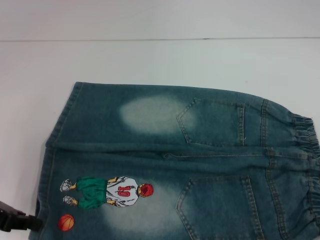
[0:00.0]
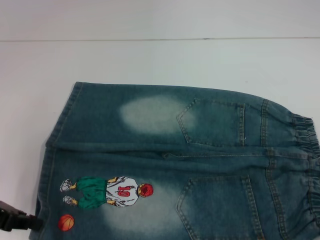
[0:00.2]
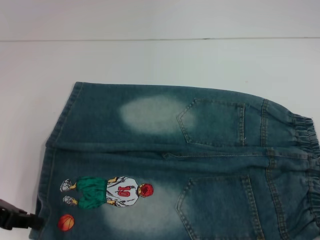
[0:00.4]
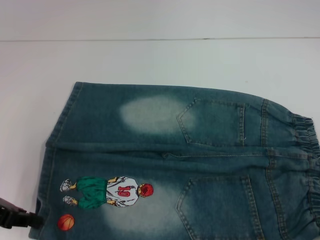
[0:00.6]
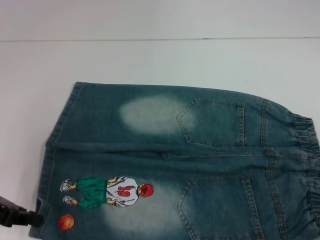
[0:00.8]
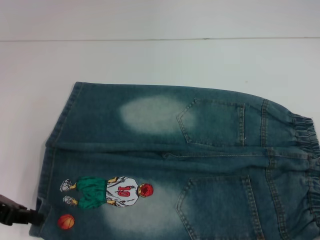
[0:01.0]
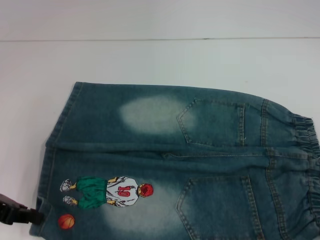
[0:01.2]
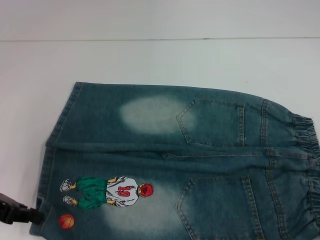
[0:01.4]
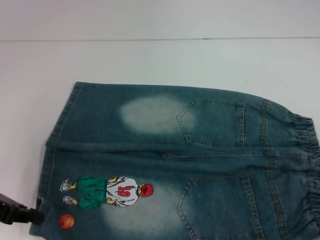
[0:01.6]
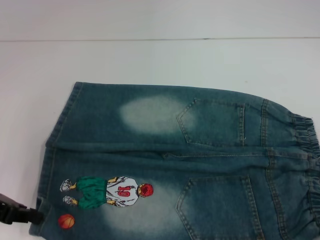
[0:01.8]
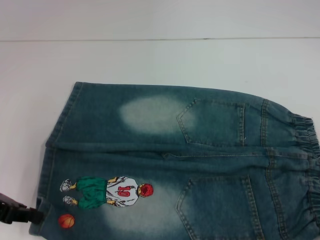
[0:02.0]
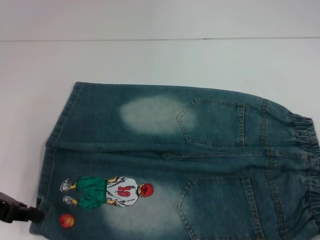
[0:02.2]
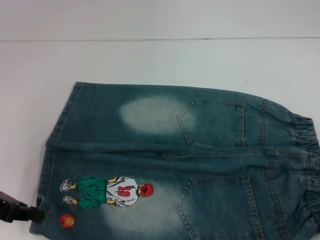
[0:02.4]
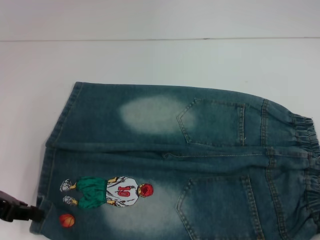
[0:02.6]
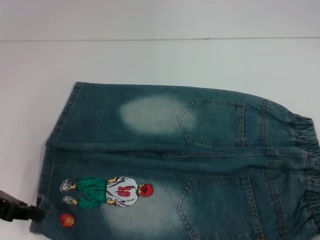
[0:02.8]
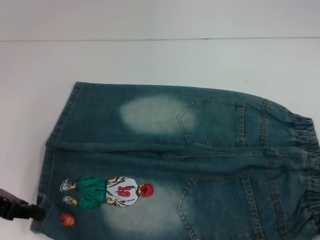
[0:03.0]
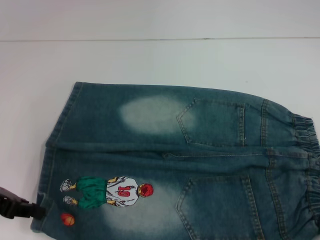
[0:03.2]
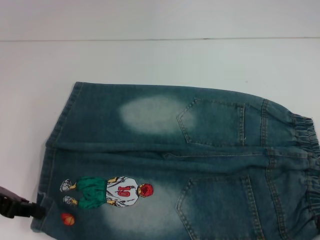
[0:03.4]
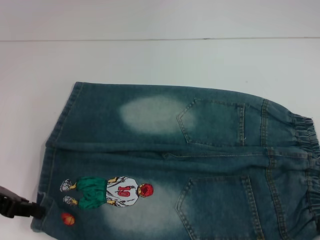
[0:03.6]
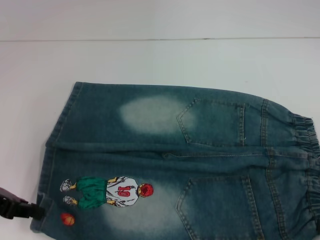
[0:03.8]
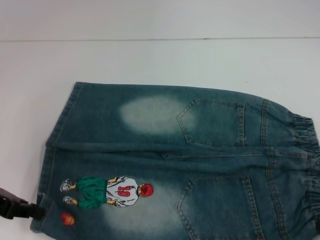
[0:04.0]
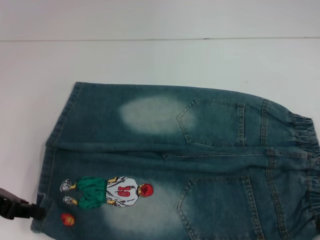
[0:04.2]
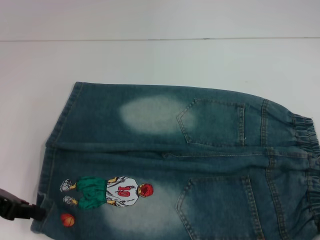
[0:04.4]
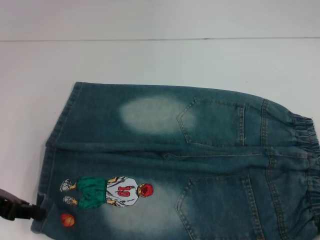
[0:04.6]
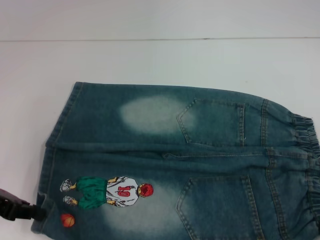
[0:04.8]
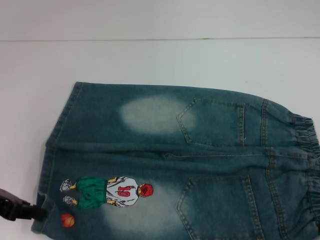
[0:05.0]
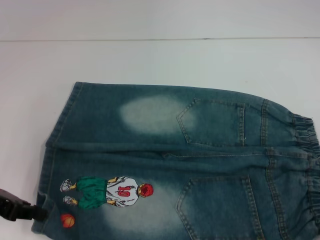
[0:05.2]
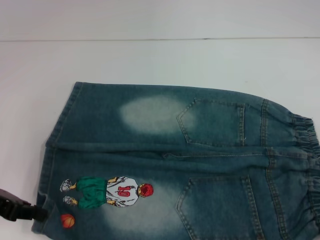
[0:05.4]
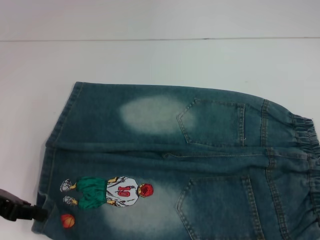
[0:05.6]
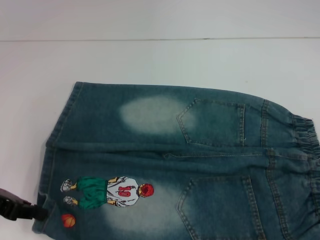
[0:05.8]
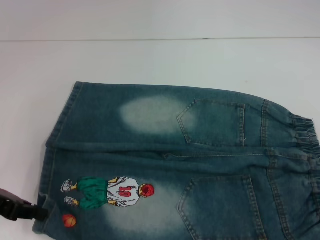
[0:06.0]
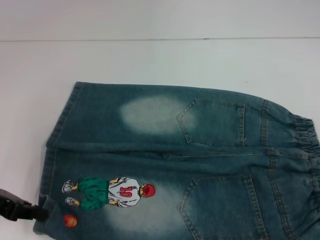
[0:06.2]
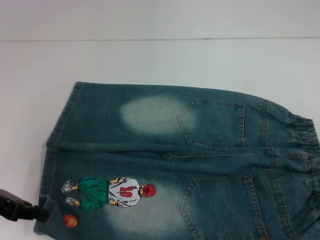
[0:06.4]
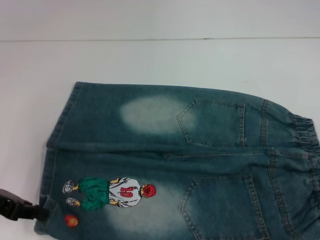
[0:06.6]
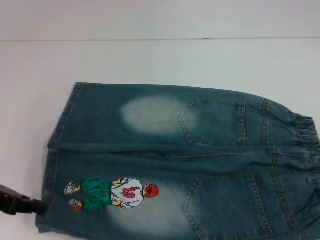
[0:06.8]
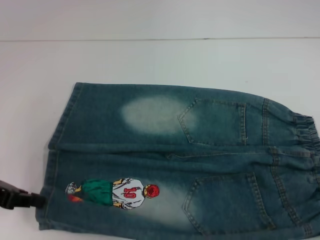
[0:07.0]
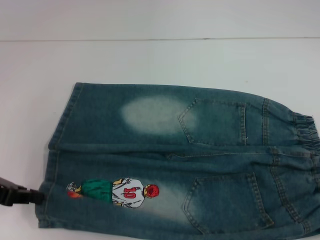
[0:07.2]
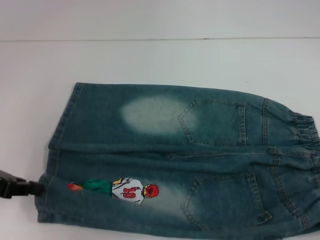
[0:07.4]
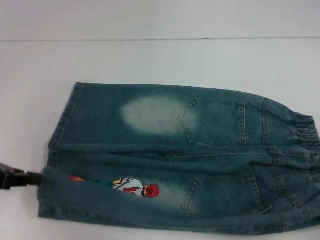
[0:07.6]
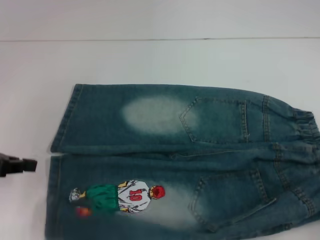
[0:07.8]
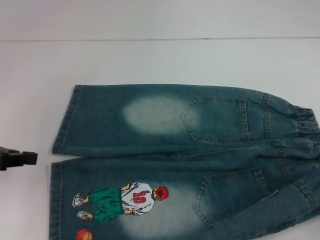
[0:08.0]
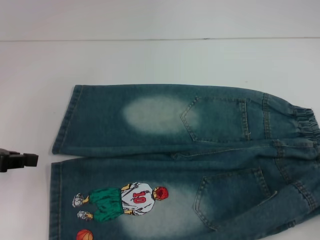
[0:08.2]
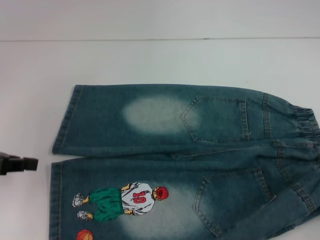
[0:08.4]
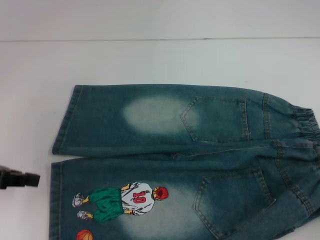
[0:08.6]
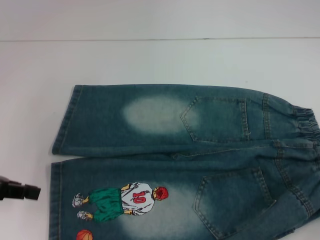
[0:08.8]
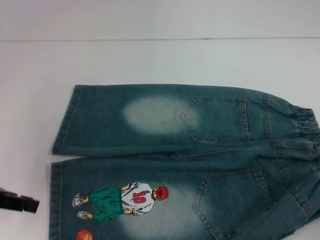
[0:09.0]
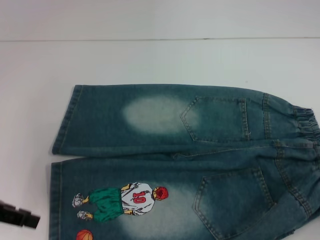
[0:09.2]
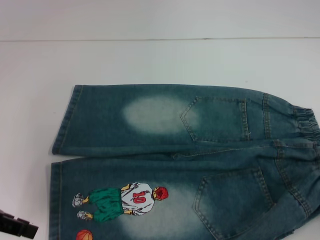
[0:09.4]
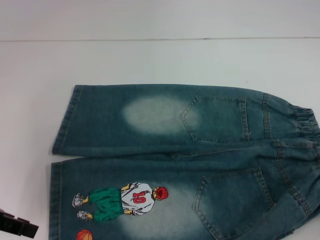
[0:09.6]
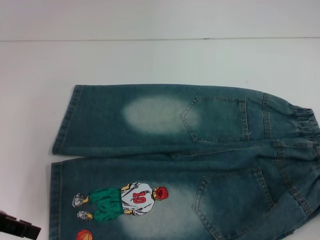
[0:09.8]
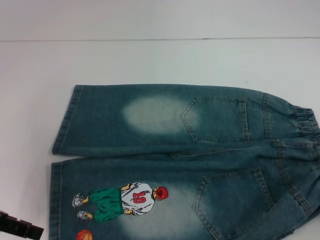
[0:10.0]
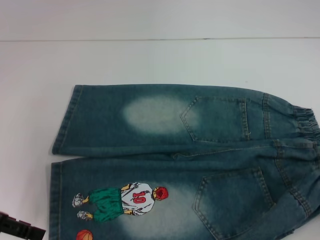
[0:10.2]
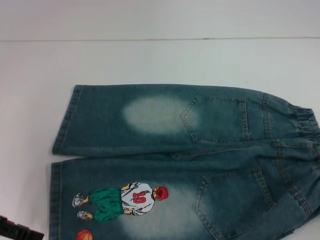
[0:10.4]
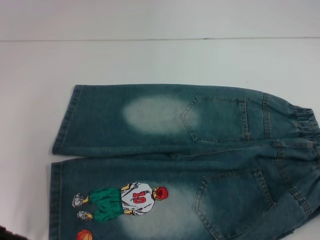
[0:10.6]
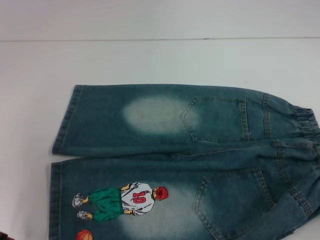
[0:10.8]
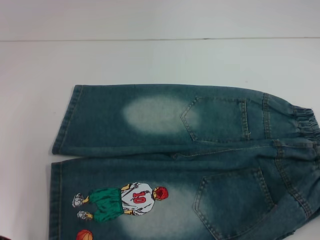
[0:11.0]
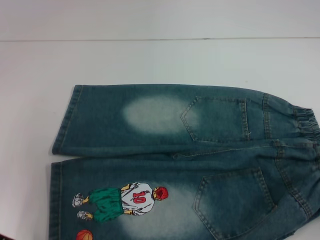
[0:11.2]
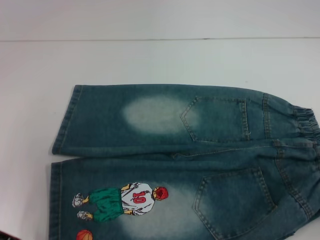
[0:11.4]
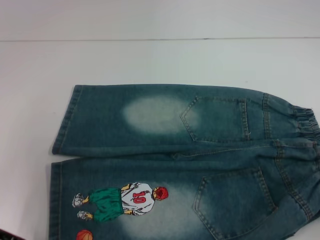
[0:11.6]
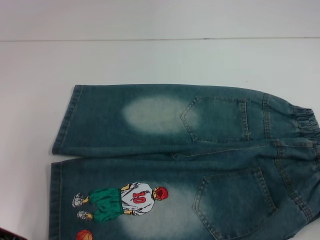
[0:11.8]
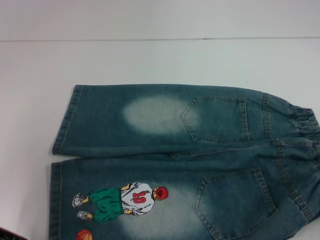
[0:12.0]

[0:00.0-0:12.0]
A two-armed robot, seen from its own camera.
0:00.0 to 0:03.0: The grippers make only small movements.
0:03.0 to 0:04.4: Neither gripper changes place.
0:04.4 to 0:06.0: The right gripper closes up.
0:06.0 to 0:09.0: There are only small adjustments of the grippers.
0:09.0 to 0:10.4: The left gripper opens.
0:10.4 to 0:12.0: The grippers move only a little.

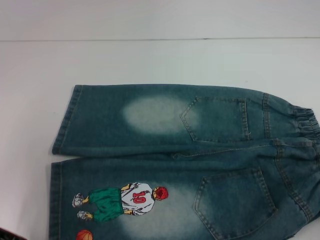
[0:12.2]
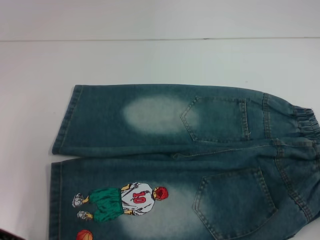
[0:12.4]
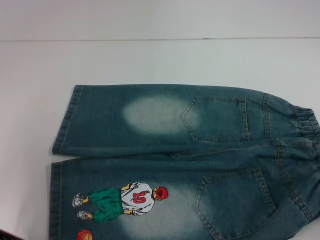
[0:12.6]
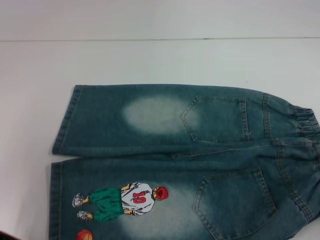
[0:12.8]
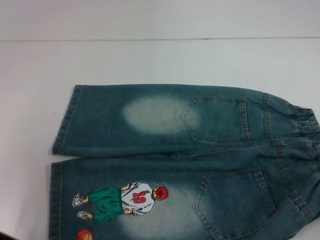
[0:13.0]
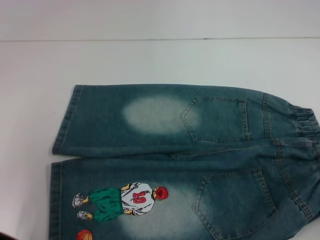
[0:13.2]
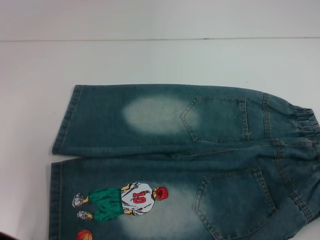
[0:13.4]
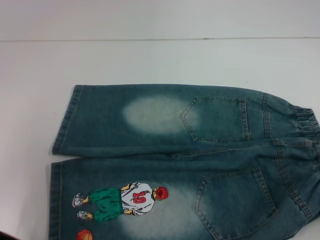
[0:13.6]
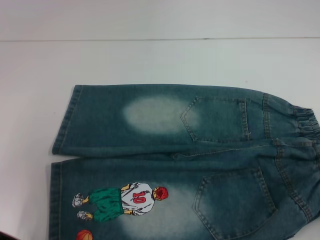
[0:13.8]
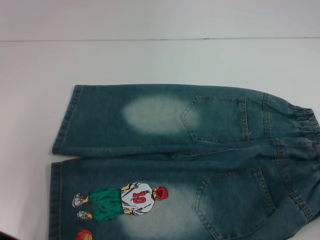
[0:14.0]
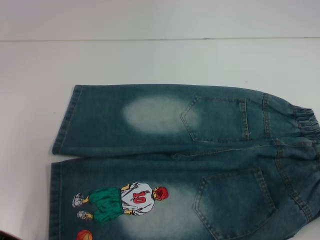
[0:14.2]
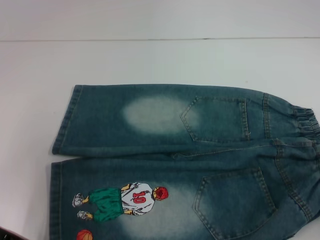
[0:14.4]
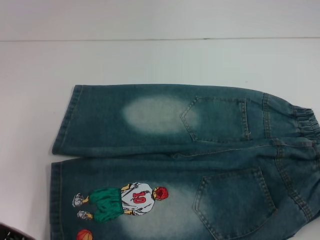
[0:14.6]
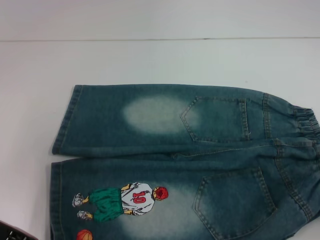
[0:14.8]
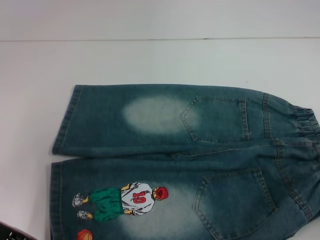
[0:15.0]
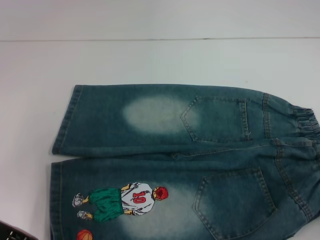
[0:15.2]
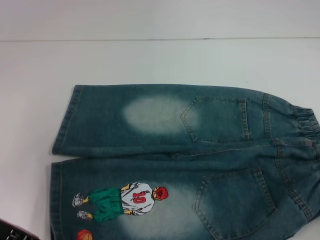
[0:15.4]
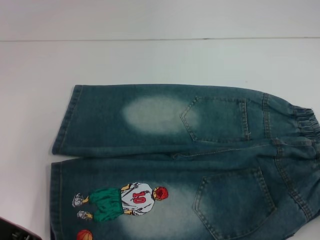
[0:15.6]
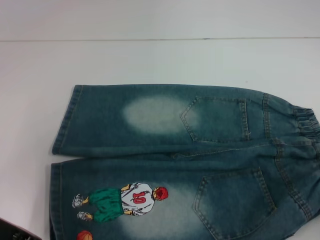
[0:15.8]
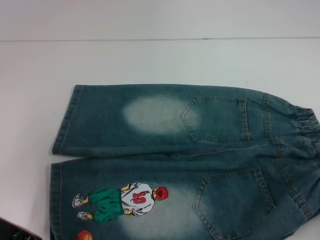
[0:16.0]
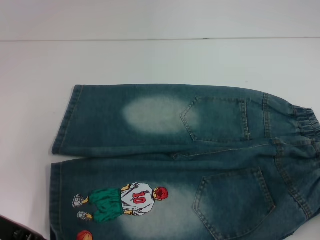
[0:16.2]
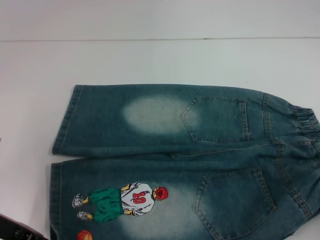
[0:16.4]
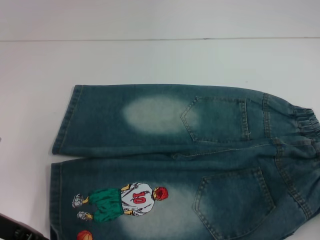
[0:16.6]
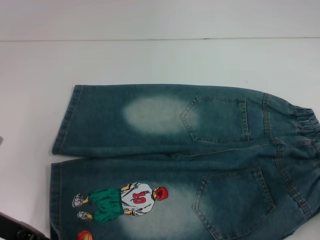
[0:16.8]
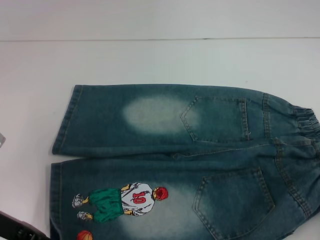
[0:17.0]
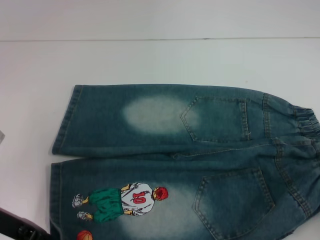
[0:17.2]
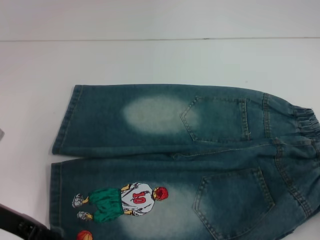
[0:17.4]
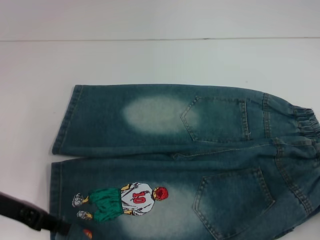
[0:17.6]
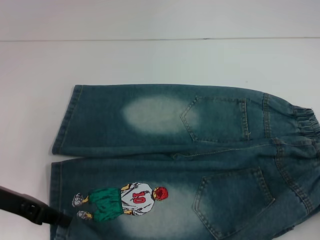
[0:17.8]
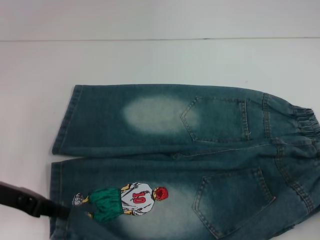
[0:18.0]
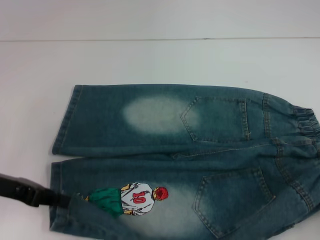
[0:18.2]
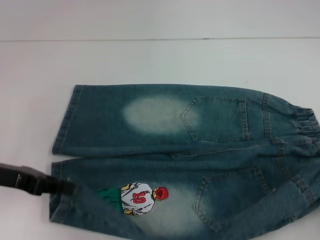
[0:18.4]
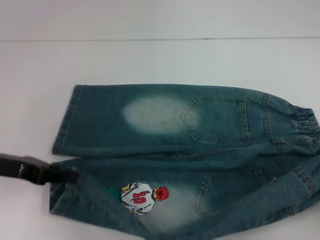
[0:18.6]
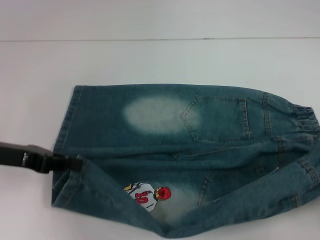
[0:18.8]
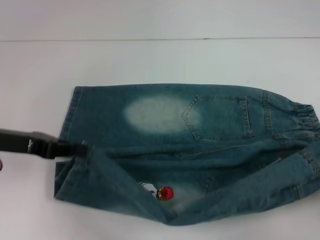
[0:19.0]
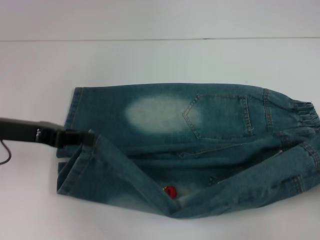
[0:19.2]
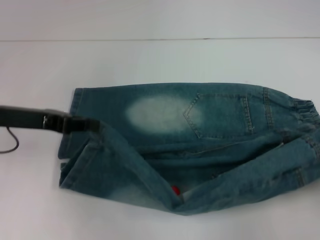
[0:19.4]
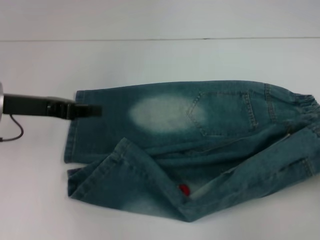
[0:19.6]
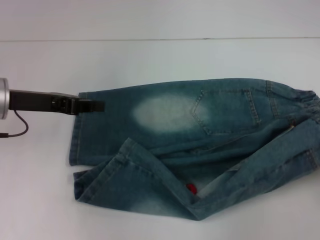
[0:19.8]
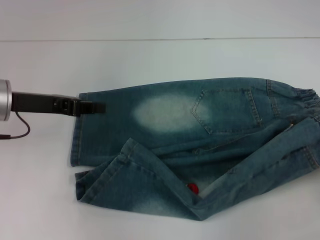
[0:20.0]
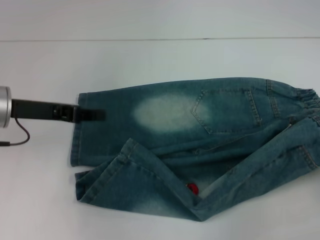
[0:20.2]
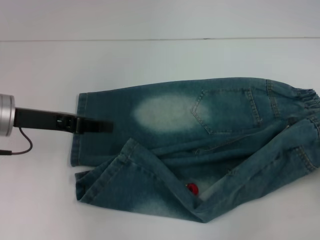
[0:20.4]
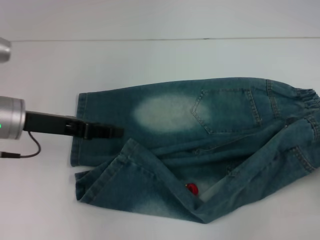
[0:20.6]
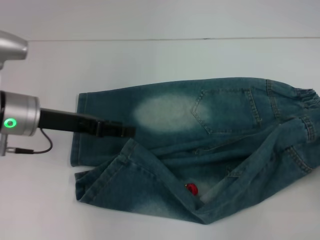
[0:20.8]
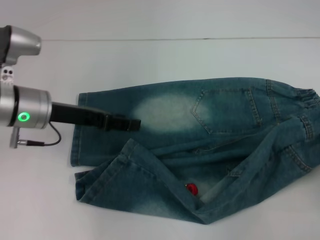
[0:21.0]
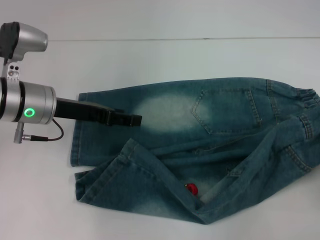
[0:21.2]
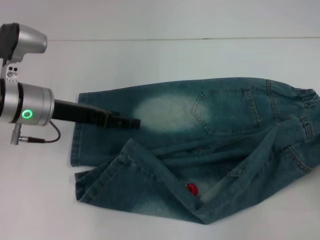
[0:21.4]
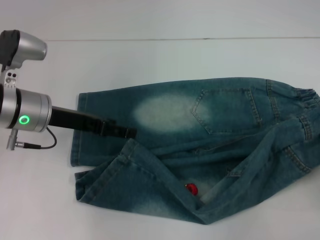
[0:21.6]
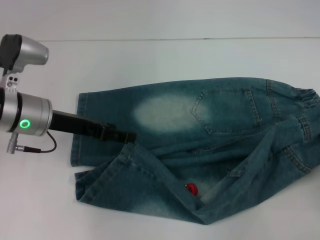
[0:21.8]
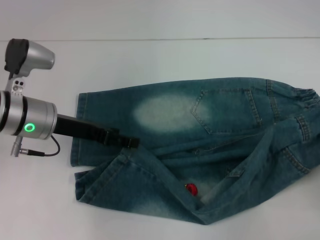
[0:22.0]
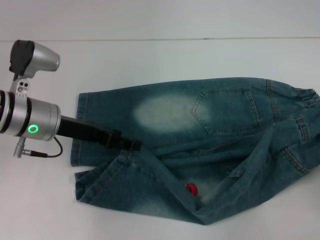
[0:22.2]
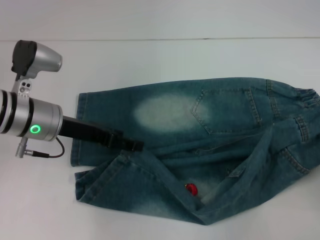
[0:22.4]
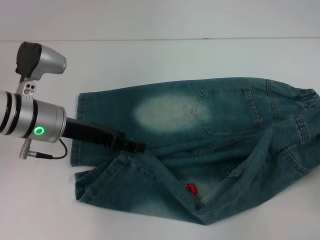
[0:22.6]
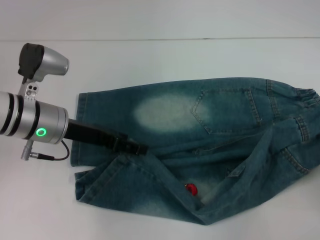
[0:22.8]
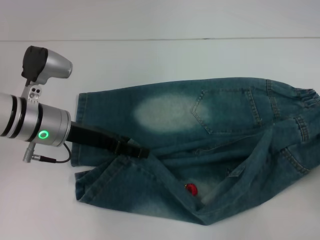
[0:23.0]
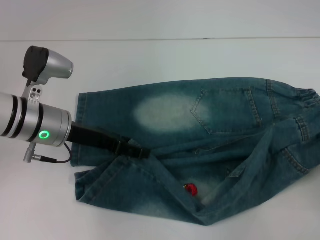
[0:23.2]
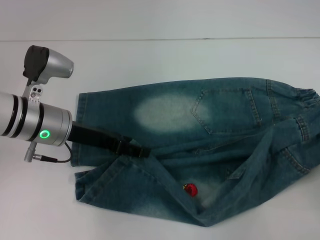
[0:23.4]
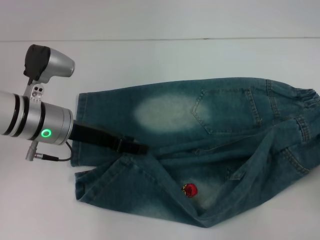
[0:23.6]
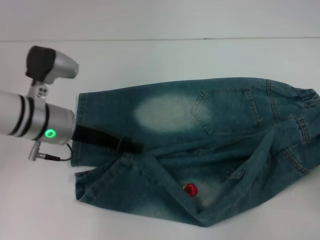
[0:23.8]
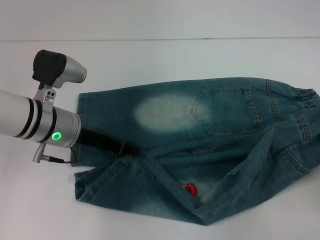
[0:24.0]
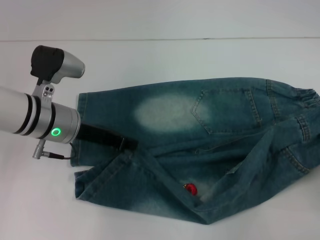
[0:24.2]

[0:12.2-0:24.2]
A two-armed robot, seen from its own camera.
0:12.2 to 0:13.8: Both grippers stay put.
0:15.2 to 0:16.6: The left gripper closes.
0:16.6 to 0:18.2: The grippers move only a little.
0:18.2 to 0:19.8: The two grippers go approximately 5 cm forward.
0:19.8 to 0:21.2: The left gripper travels to the right by about 5 cm, and opens.
0:21.2 to 0:22.6: The grippers make only small movements.
0:22.6 to 0:24.2: The left gripper closes up.
